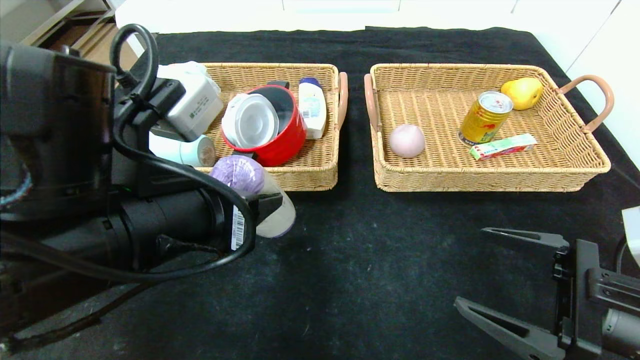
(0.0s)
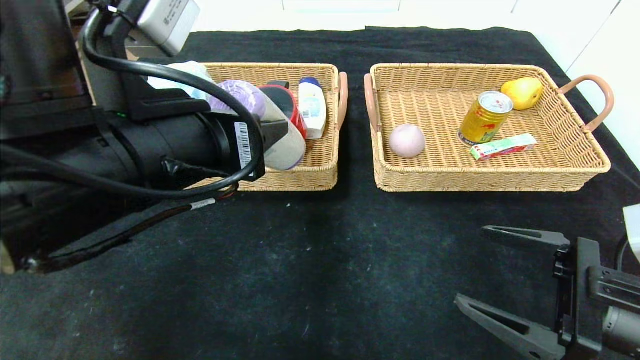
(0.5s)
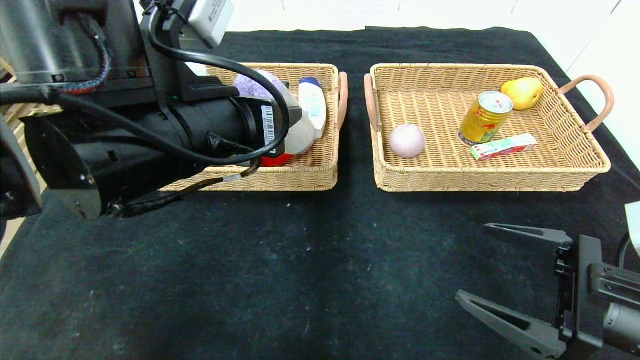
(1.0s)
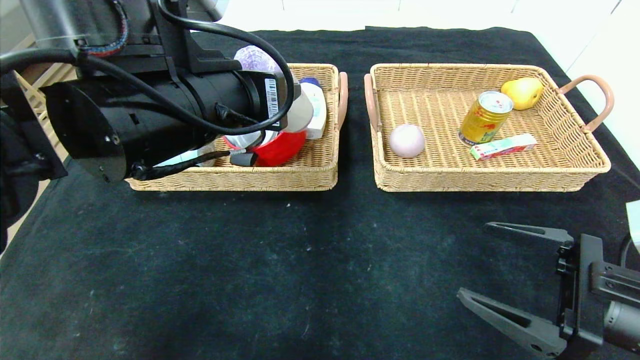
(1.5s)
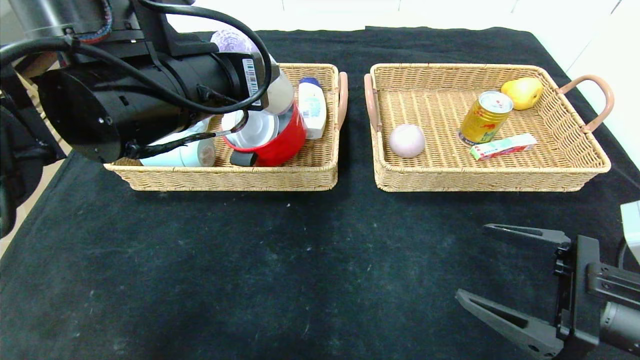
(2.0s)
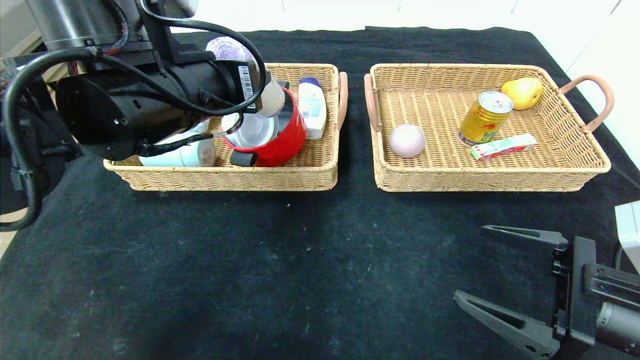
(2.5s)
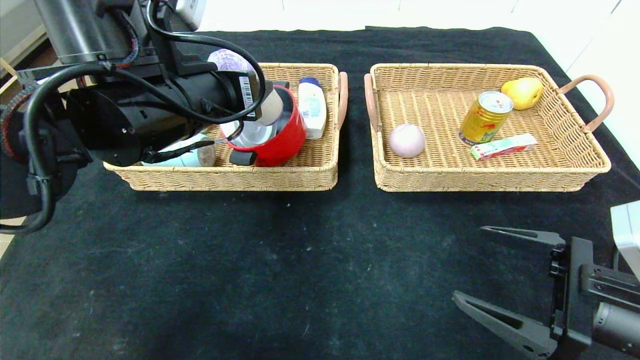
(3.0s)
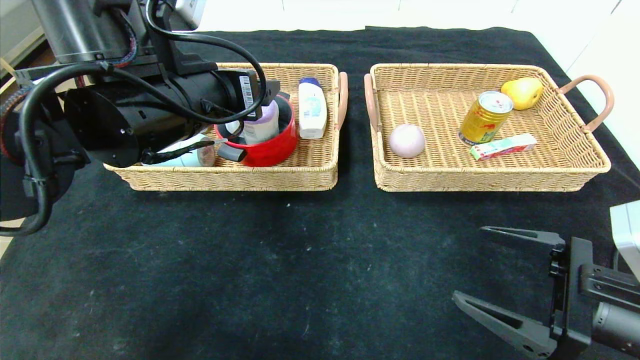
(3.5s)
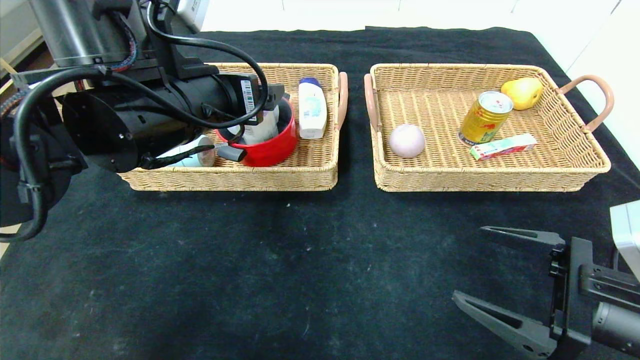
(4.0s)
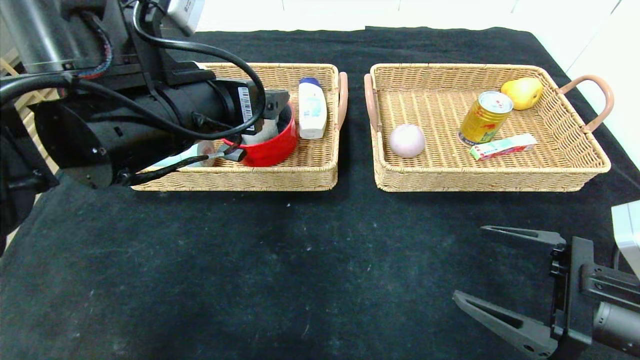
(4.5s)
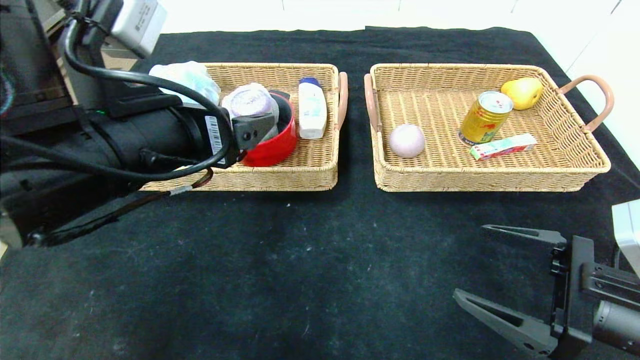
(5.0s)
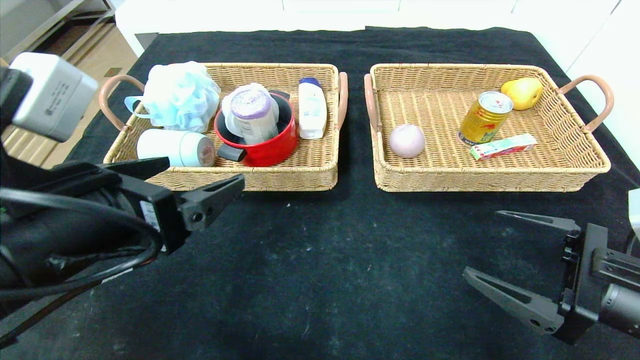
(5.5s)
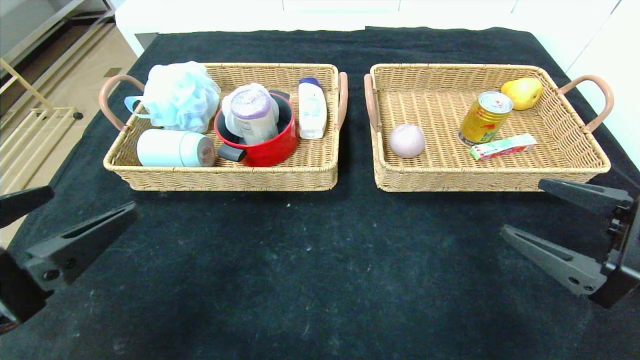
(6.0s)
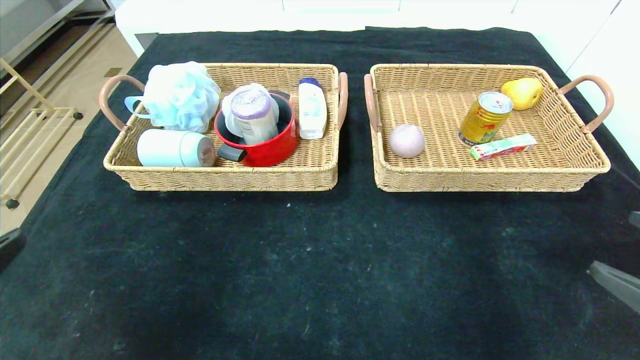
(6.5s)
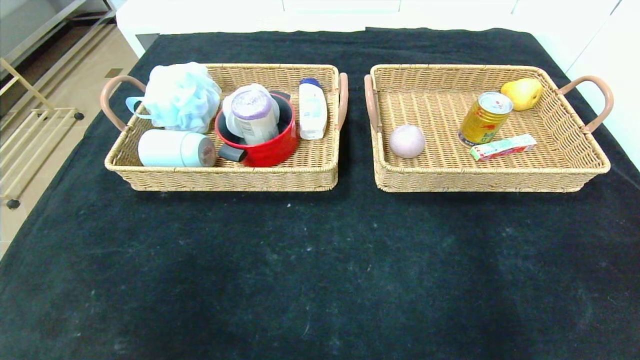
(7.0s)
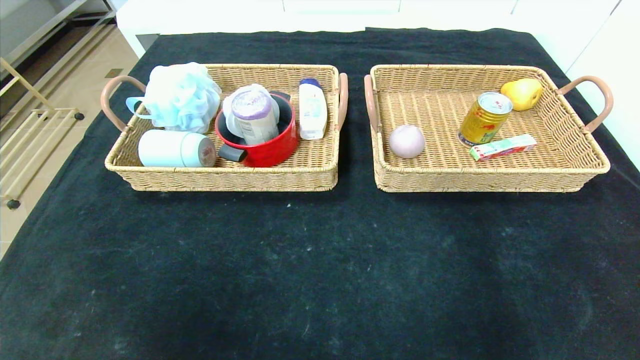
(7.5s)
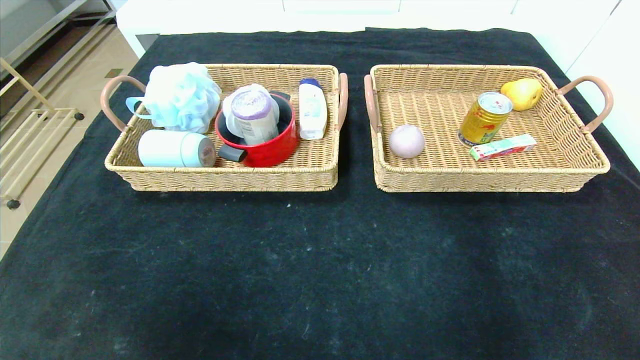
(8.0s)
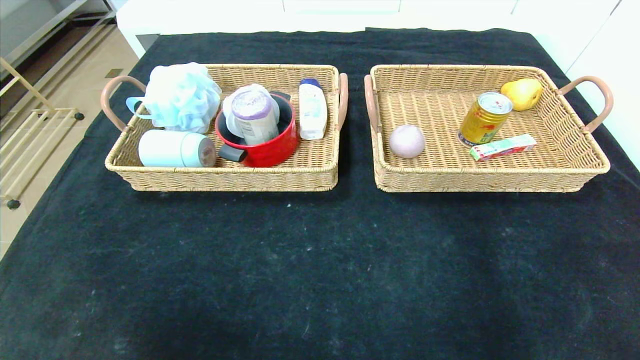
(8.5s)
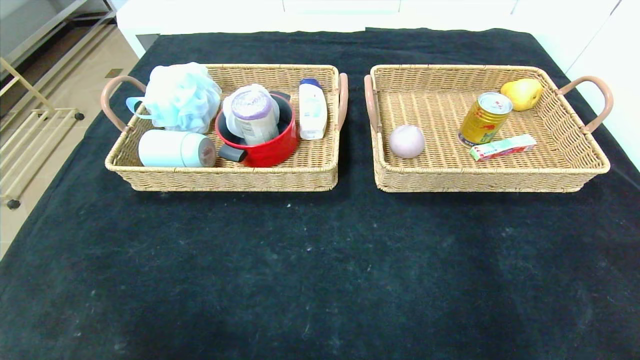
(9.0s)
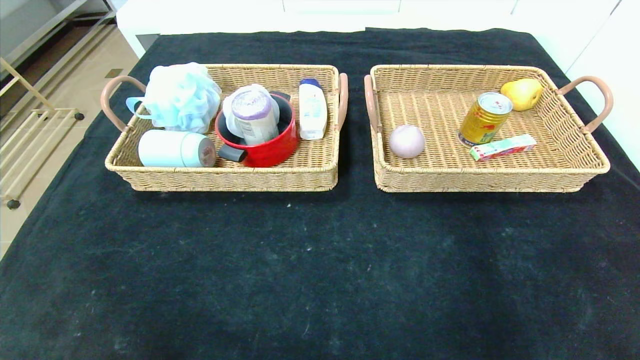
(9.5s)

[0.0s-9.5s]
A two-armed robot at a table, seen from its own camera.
Step, 0.0s to 3.5s: Grasp the purple garbage bag and put it in the left basket.
0.0s to 2.0s: The left gripper travels forward and upward by roughly 10 cm.
2.0s to 4.0s: The left gripper opens.
4.0s to 5.5s: The left gripper goes about 15 cm backward and downward.
5.5s to 7.5s: The left gripper moves backward and to the left, roughly 25 cm; the right gripper heads backward and to the right, covering about 20 cm.
